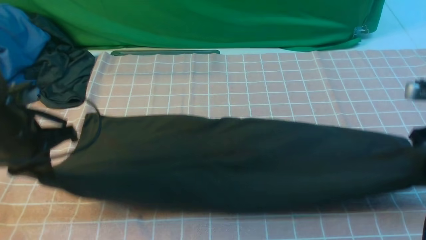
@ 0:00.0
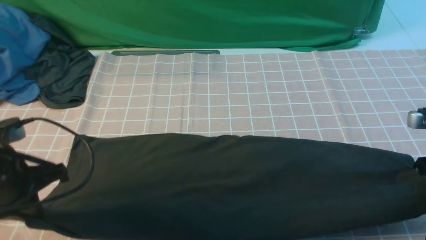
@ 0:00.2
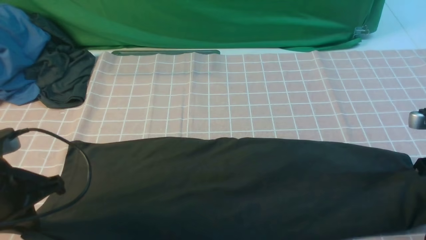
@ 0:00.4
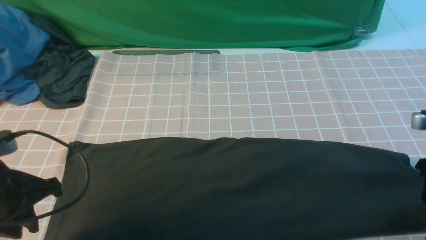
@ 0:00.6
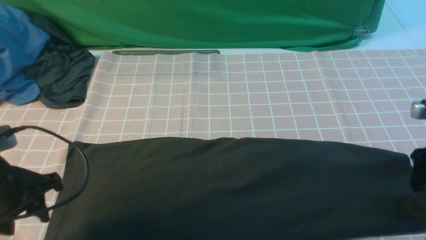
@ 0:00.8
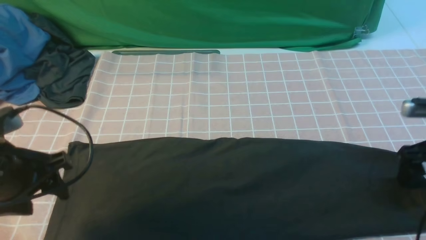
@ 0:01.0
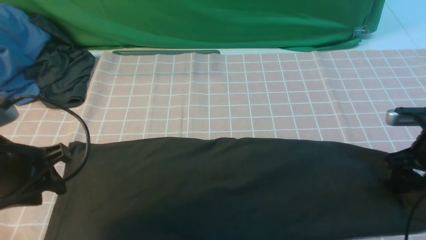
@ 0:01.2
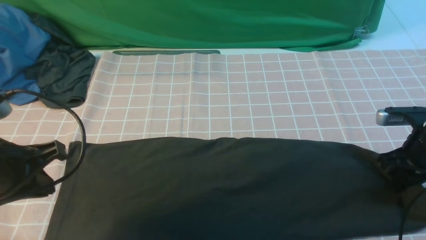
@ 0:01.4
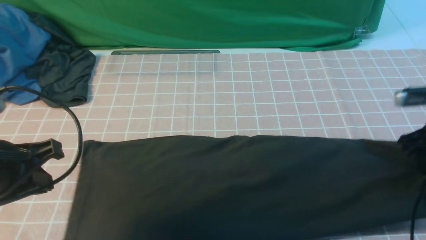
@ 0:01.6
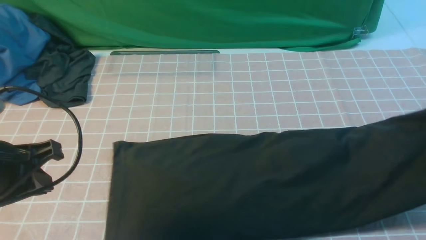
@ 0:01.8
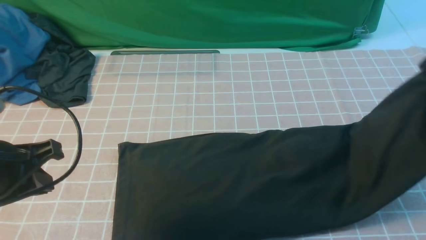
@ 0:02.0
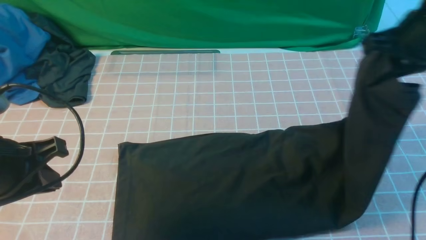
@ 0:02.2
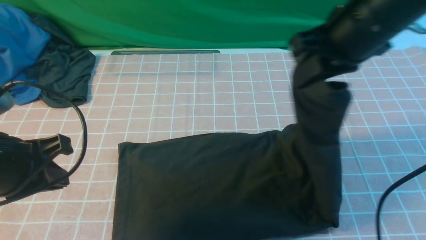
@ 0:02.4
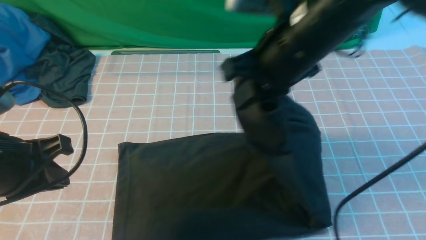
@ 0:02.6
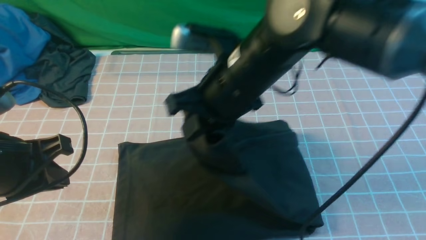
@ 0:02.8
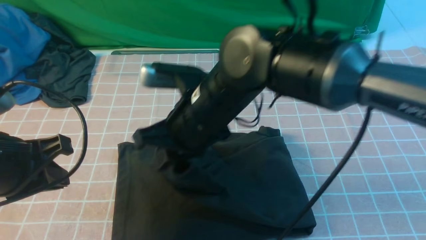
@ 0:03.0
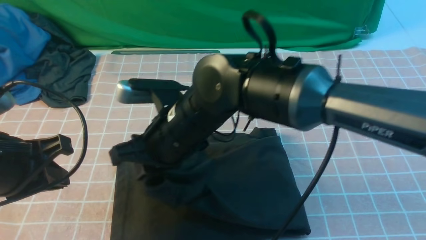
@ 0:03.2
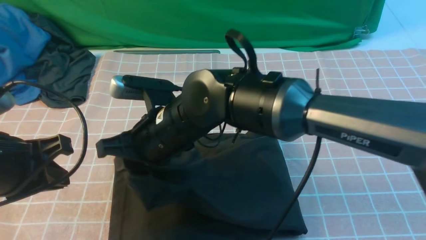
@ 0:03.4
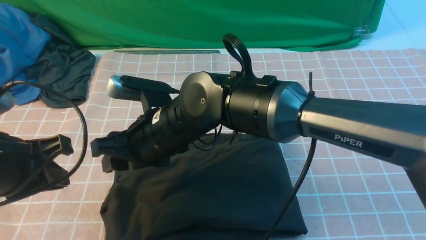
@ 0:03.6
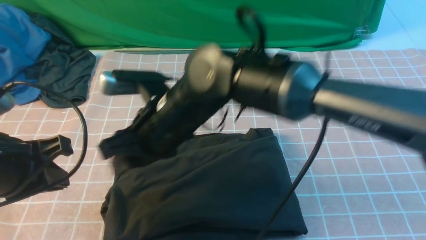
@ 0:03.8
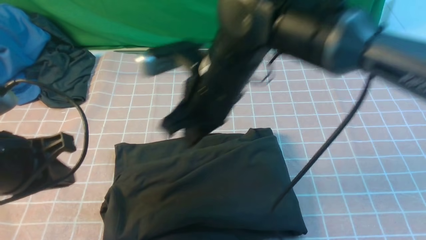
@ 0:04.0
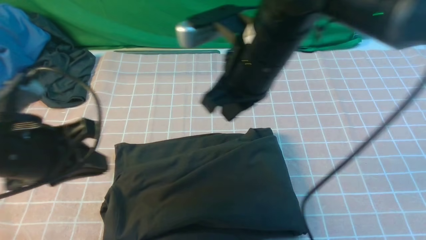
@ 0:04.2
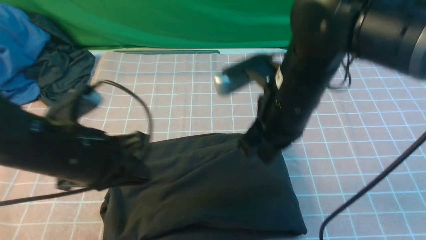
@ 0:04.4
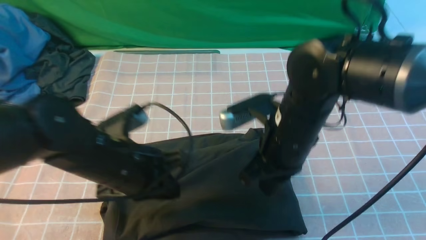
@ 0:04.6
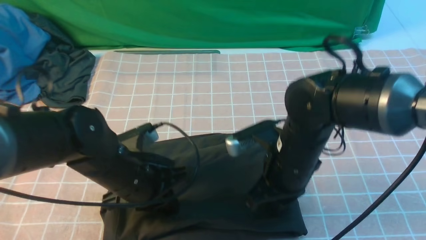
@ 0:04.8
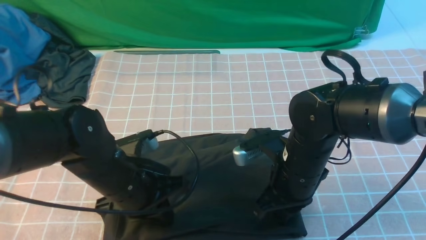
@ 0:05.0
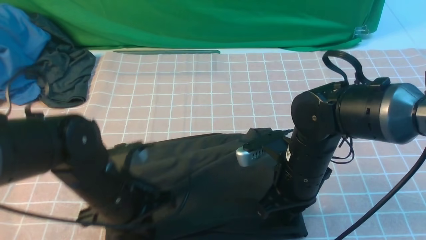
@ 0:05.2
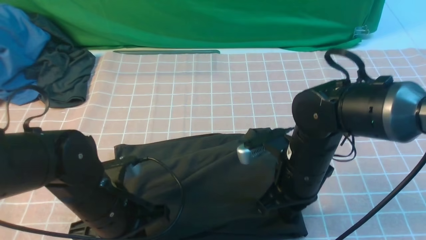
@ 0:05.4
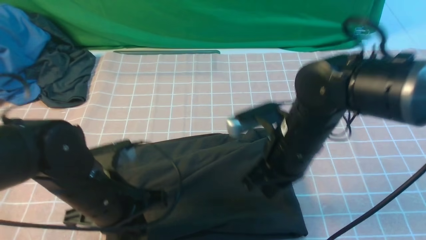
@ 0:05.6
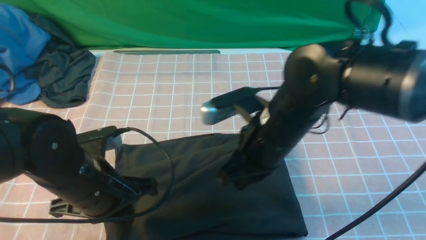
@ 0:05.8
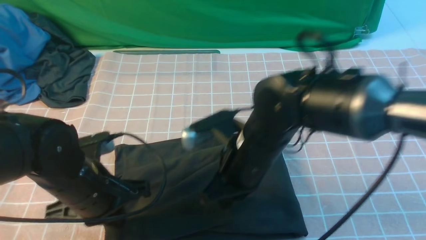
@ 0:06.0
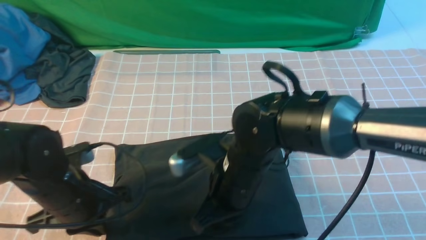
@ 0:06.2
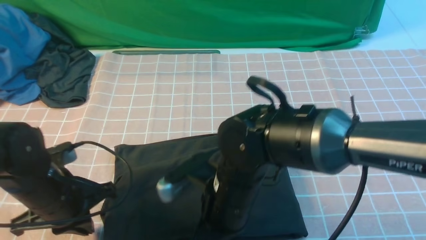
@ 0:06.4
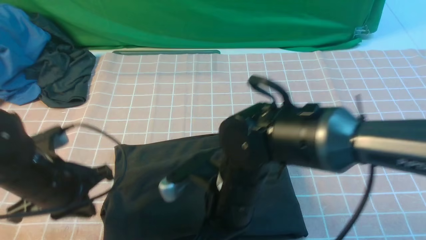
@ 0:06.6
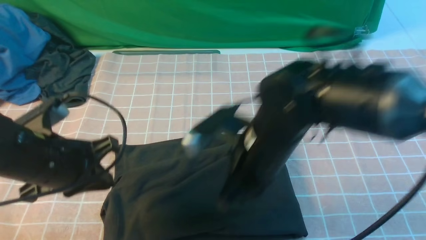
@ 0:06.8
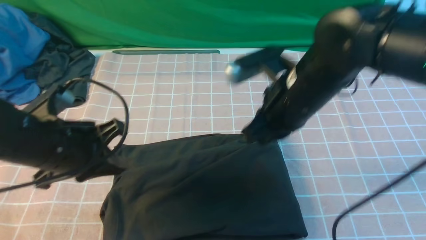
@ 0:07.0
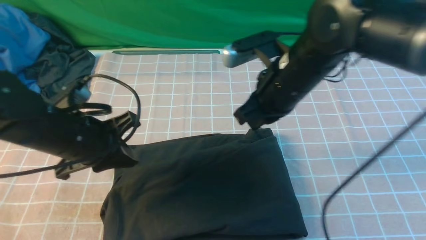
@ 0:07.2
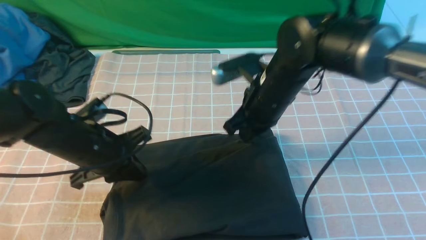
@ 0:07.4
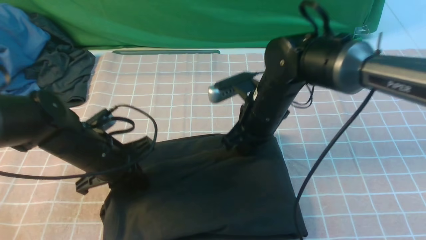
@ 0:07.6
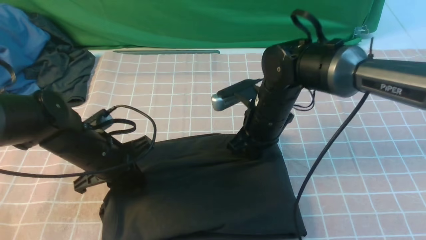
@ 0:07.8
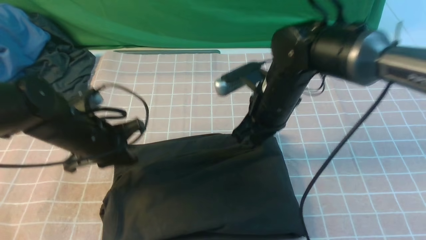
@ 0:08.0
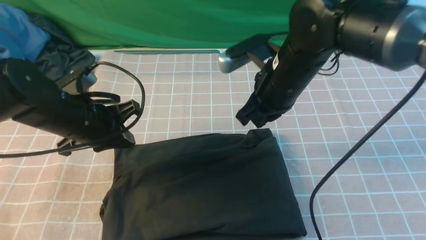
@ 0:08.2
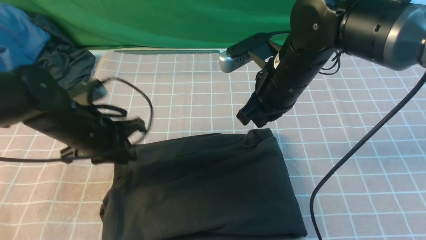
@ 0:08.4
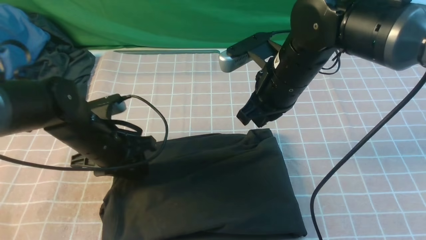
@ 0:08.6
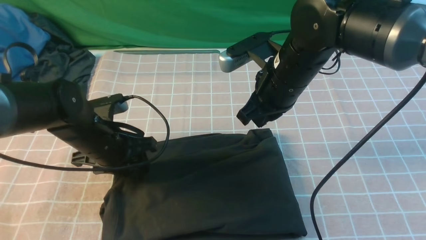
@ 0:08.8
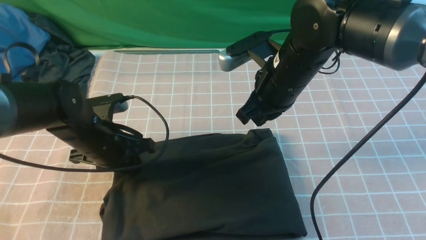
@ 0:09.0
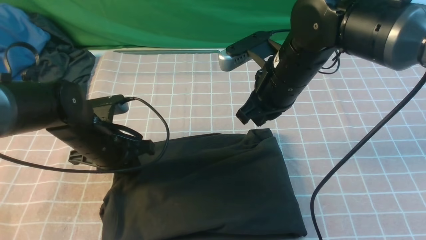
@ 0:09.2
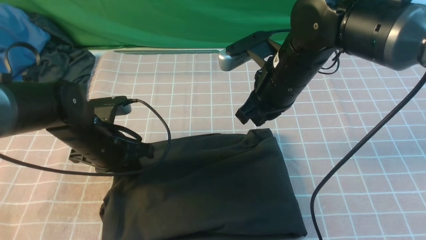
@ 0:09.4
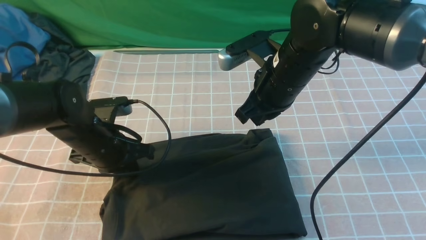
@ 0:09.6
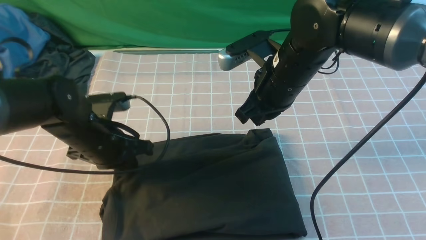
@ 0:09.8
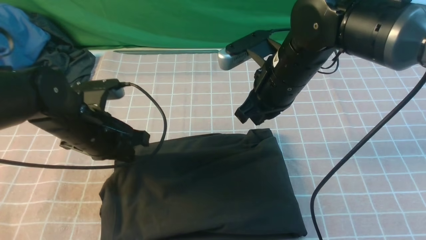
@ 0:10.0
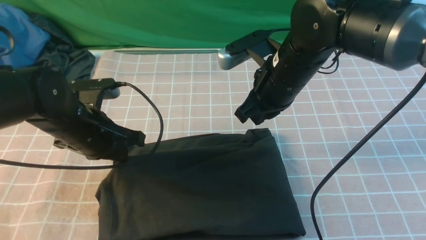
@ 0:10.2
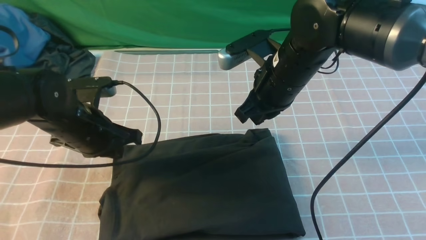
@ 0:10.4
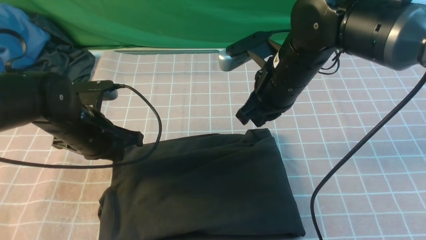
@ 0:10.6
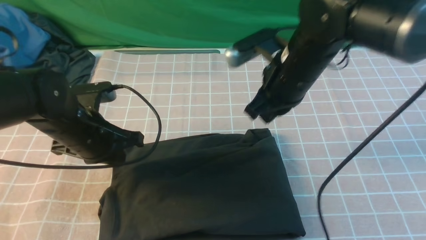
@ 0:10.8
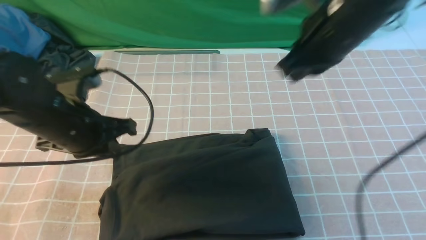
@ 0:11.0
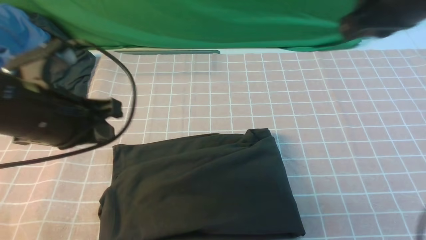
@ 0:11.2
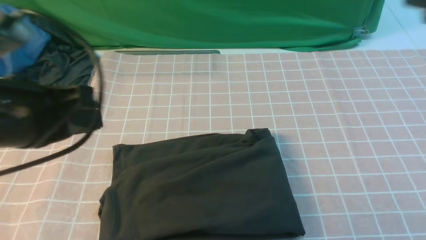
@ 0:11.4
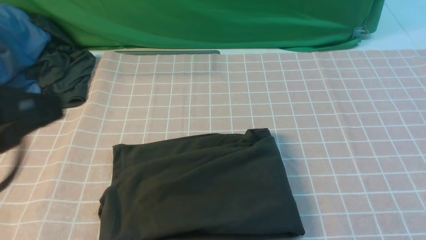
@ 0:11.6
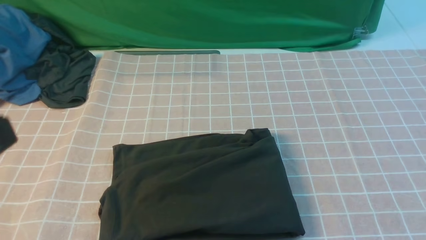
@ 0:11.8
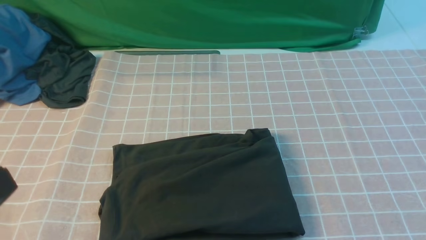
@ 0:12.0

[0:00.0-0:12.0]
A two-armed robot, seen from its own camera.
Step, 0:01.6 to 0:03.8: use the right arm to drag the right edge of the fabric to the left and folds it over the left edge.
0:00.0 to 0:01.6: The left gripper is displaced backward by some 10 cm, and opens, then closes once more. Meanwhile the right gripper opens, then closes again.
0:01.6 to 0:03.0: The right gripper travels to the left by roughly 40 cm.
0:03.0 to 0:04.4: The grippers both shift to the right by roughly 10 cm. The right gripper opens, then closes again.
0:04.4 to 0:06.0: Both grippers travel together downward, about 5 cm.
0:06.0 to 0:07.6: Both grippers move forward, roughly 10 cm. The left gripper reaches approximately 5 cm upward, then returns.
0:07.6 to 0:09.0: The right gripper moves upward, roughly 5 cm; the left gripper opens its fingers.
0:09.0 to 0:10.4: The left gripper closes up.
0:10.4 to 0:12.0: The left gripper goes approximately 30 cm backward and upward, while the right gripper goes roughly 35 cm backward and to the right.

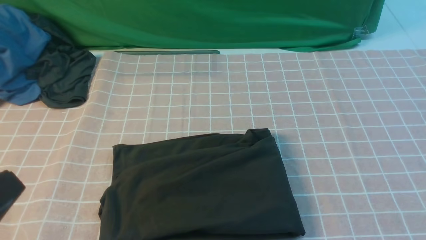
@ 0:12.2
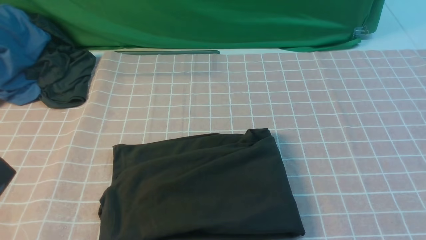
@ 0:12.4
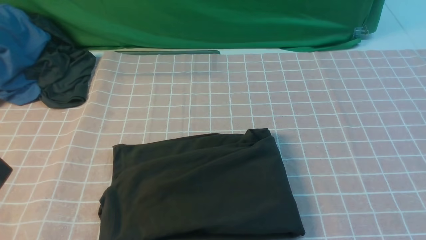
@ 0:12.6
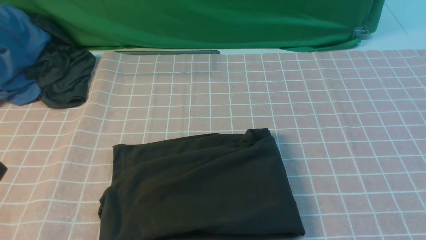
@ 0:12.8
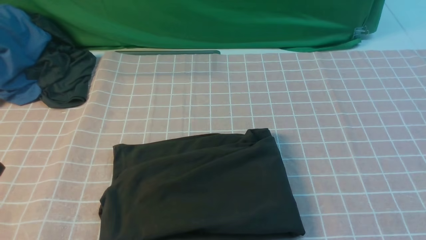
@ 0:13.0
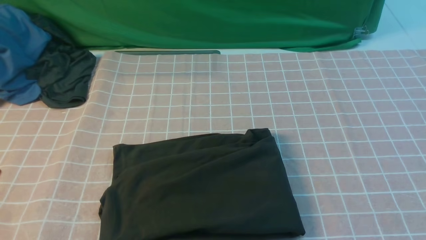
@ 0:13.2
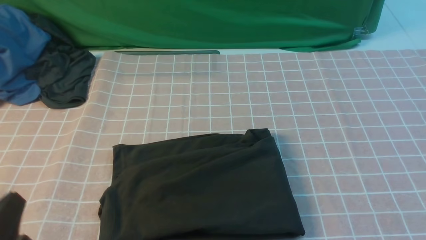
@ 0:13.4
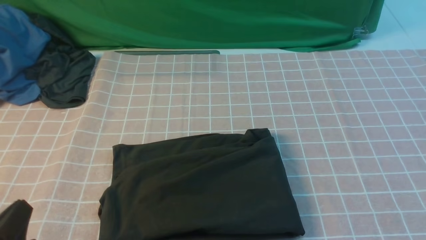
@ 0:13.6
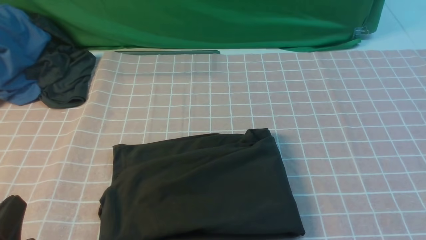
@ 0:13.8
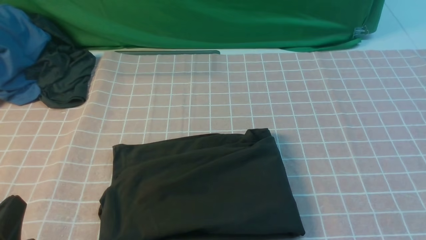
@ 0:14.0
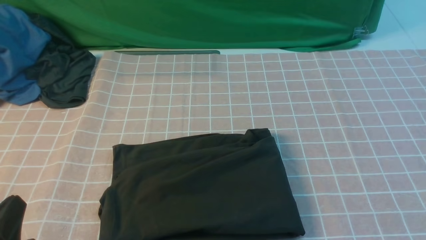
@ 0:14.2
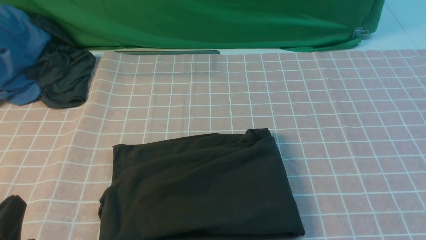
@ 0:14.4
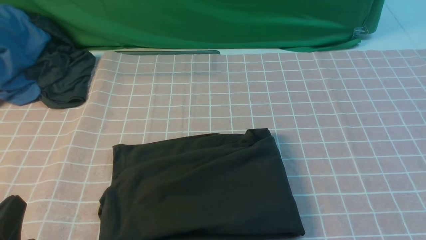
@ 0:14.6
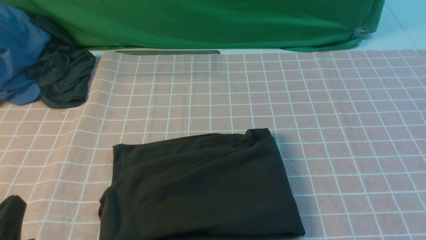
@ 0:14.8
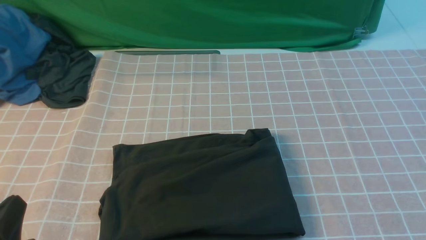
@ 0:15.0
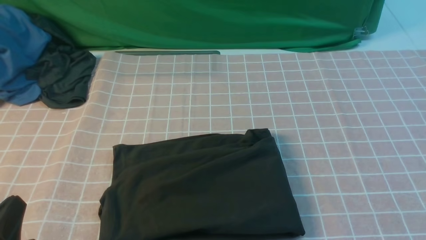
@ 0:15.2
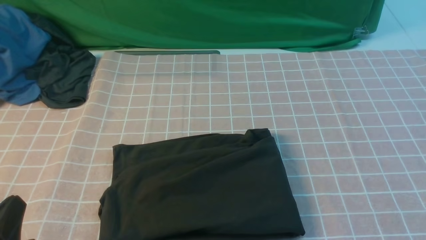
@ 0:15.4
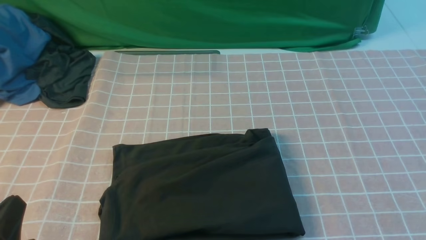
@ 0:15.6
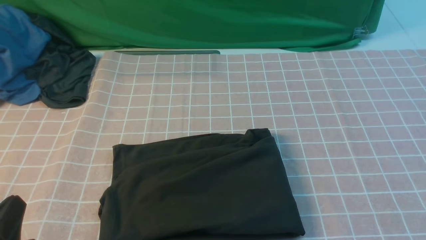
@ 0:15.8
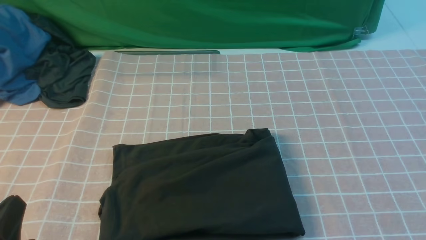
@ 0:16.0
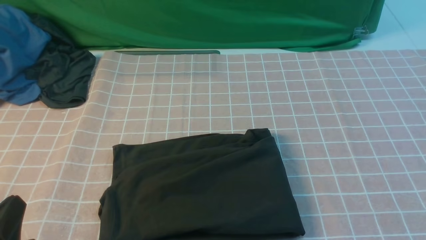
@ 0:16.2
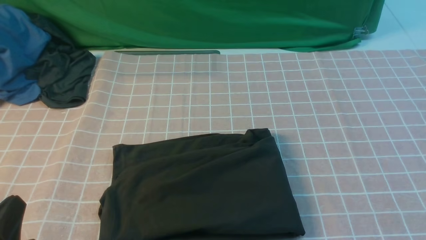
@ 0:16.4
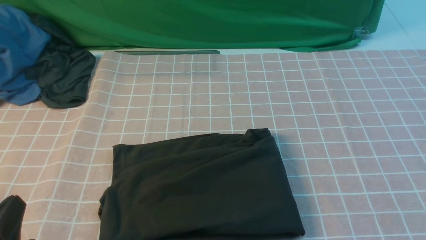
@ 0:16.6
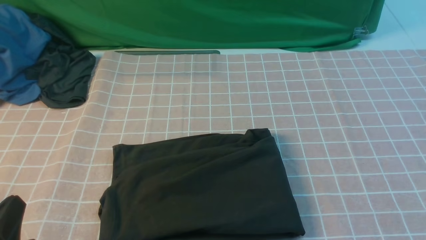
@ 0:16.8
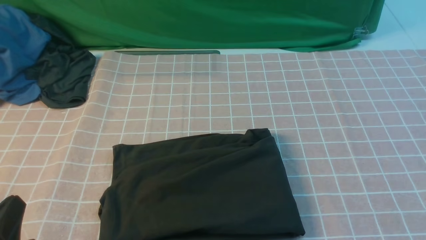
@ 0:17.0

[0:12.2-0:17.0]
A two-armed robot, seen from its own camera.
0:12.2 to 0:13.8: The left gripper travels downward by approximately 15 cm.
0:15.4 to 0:17.0: The two grippers keep their place.
